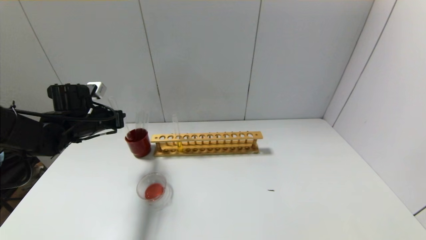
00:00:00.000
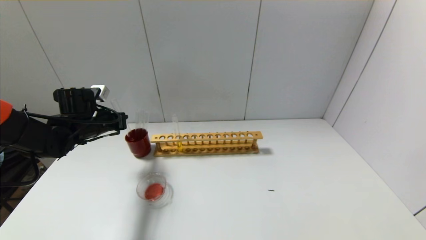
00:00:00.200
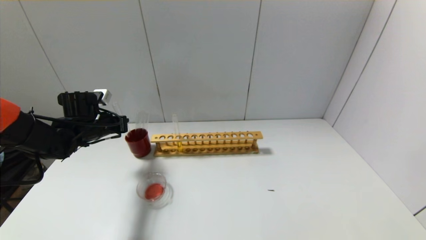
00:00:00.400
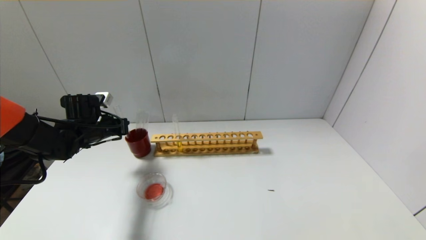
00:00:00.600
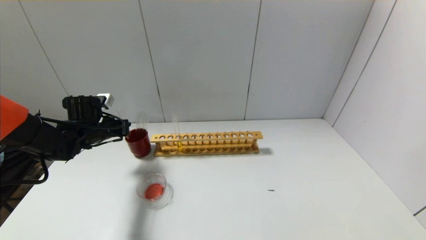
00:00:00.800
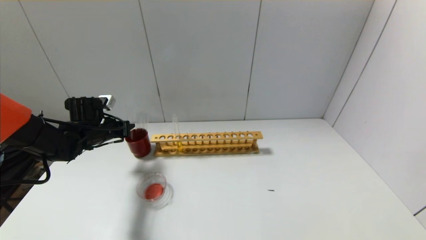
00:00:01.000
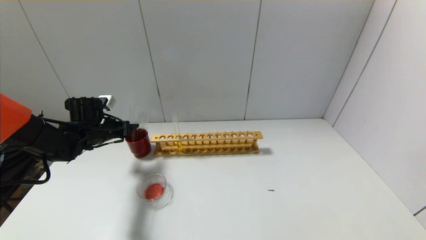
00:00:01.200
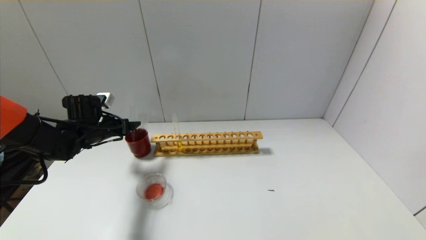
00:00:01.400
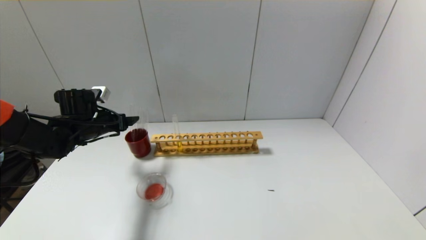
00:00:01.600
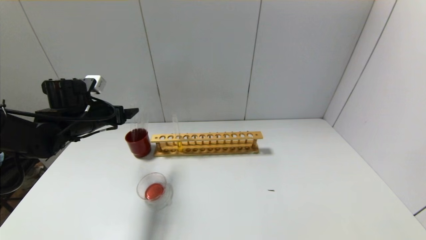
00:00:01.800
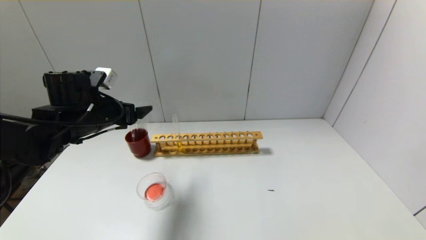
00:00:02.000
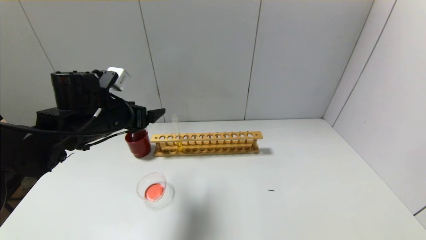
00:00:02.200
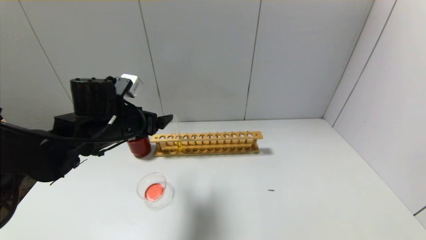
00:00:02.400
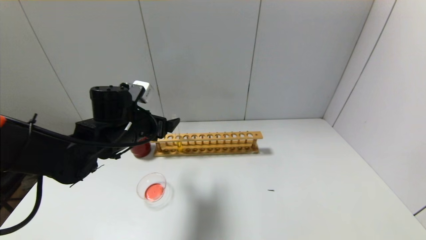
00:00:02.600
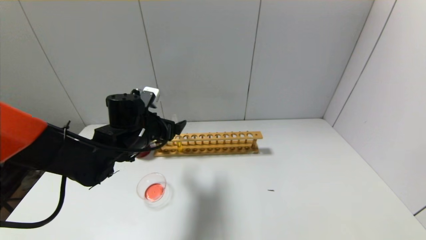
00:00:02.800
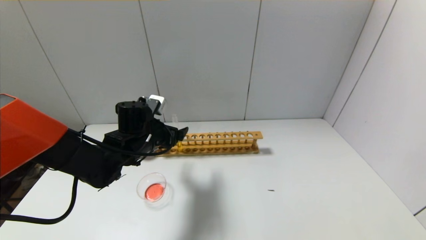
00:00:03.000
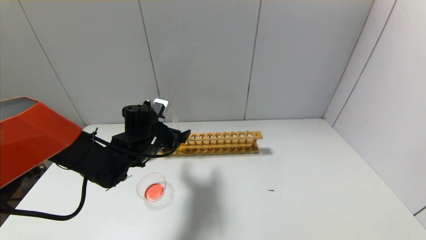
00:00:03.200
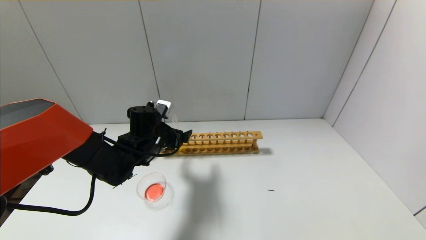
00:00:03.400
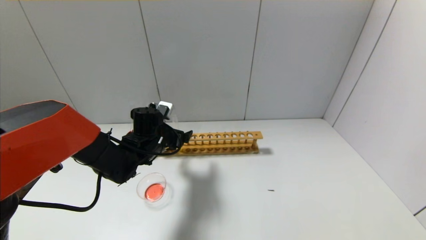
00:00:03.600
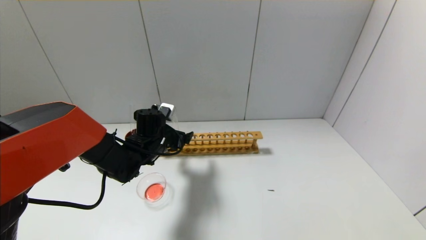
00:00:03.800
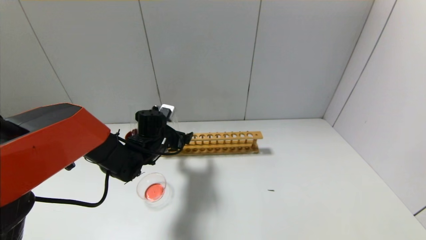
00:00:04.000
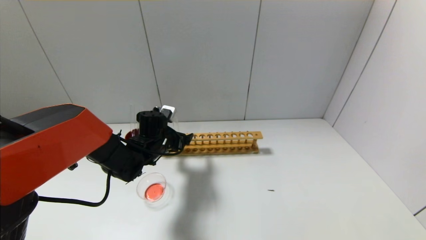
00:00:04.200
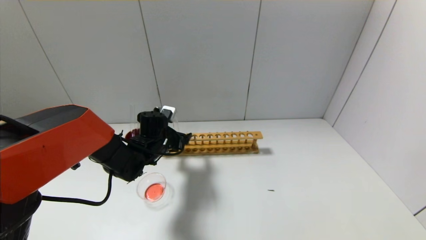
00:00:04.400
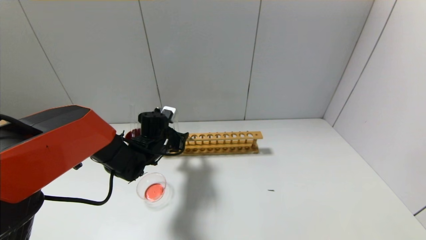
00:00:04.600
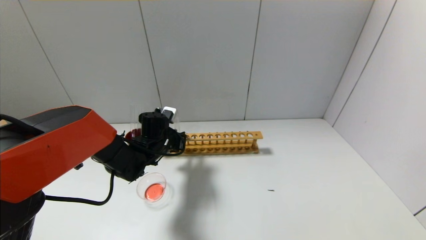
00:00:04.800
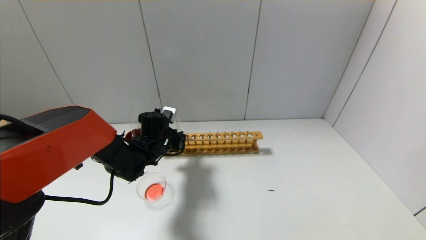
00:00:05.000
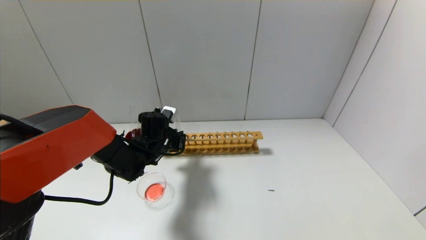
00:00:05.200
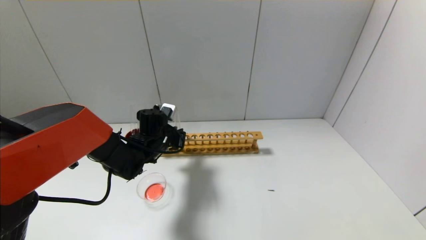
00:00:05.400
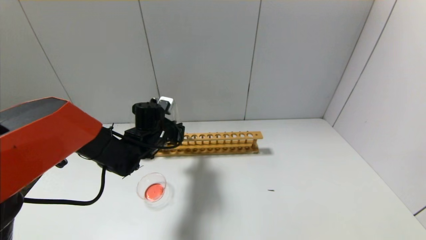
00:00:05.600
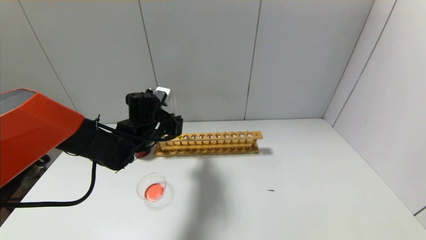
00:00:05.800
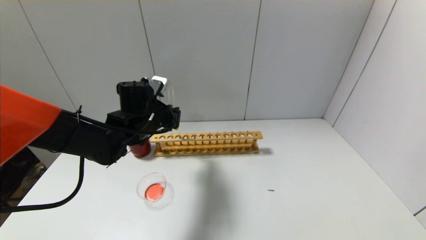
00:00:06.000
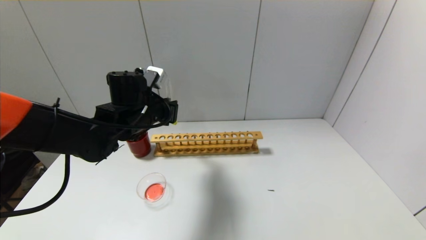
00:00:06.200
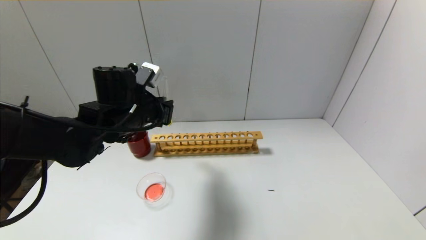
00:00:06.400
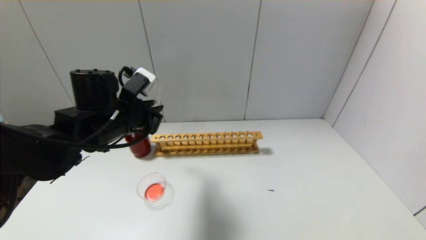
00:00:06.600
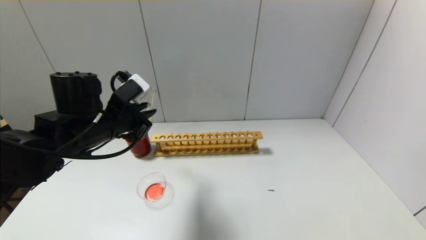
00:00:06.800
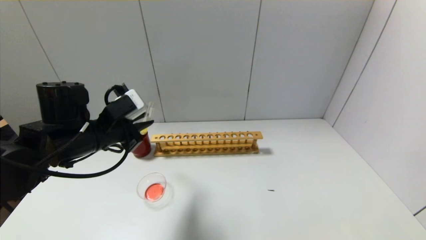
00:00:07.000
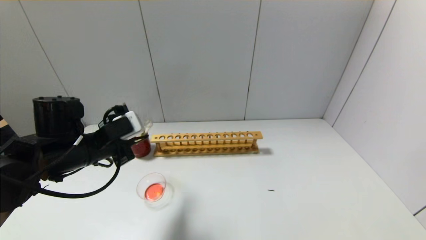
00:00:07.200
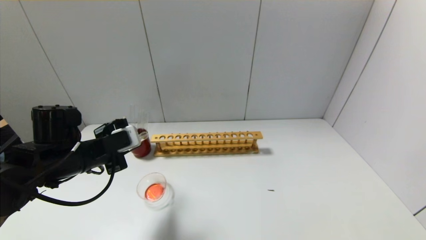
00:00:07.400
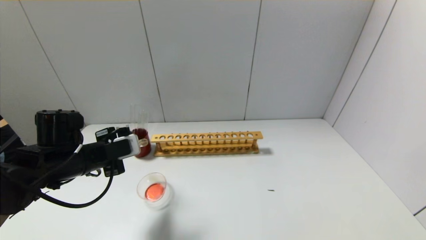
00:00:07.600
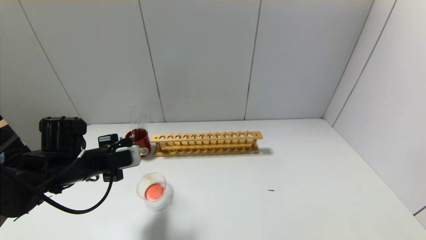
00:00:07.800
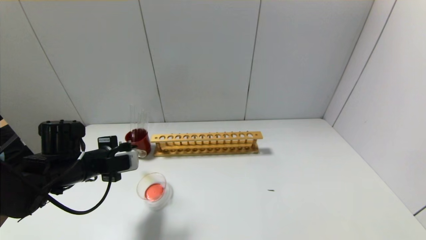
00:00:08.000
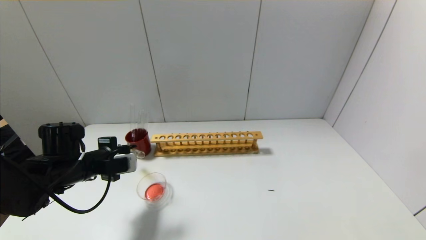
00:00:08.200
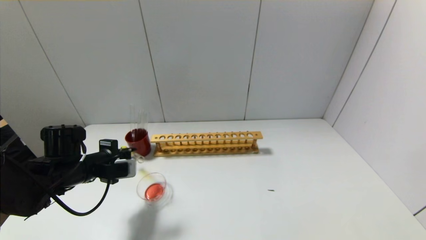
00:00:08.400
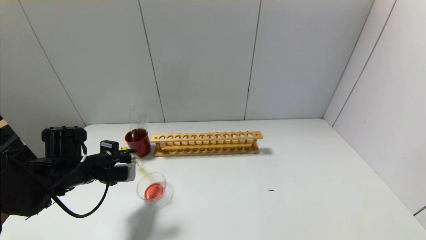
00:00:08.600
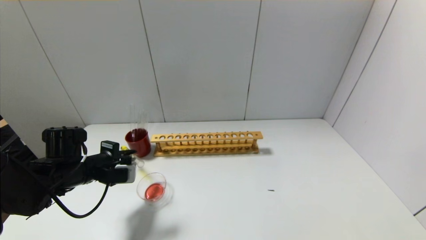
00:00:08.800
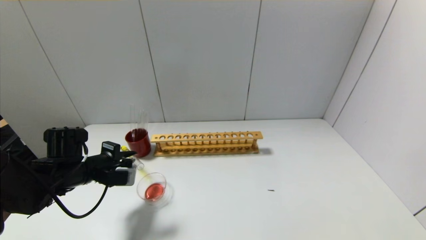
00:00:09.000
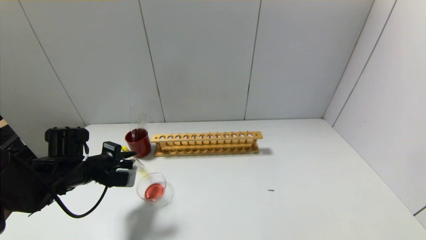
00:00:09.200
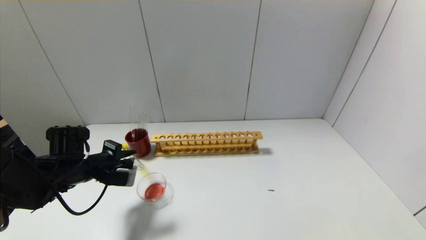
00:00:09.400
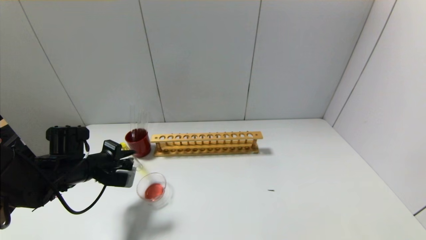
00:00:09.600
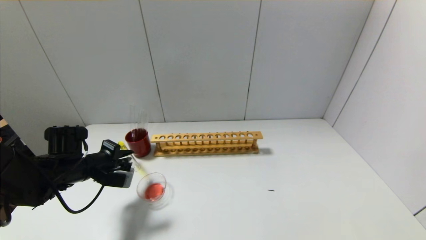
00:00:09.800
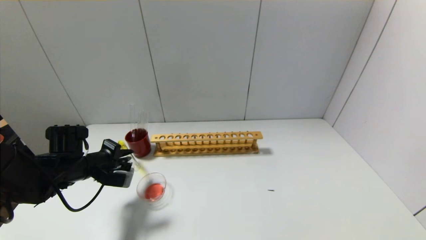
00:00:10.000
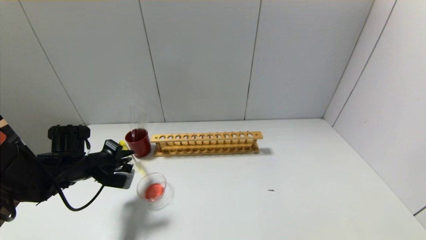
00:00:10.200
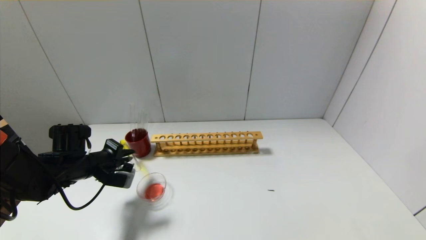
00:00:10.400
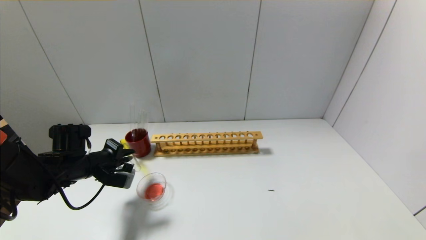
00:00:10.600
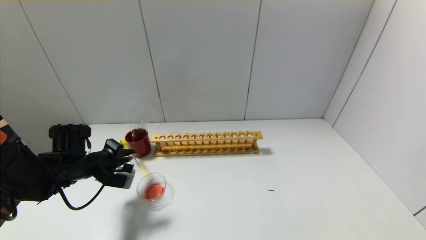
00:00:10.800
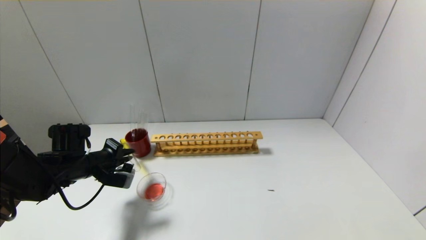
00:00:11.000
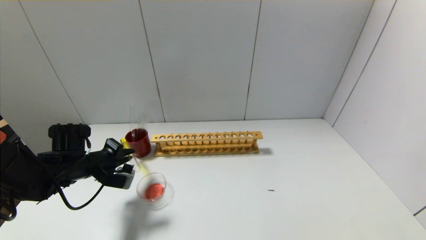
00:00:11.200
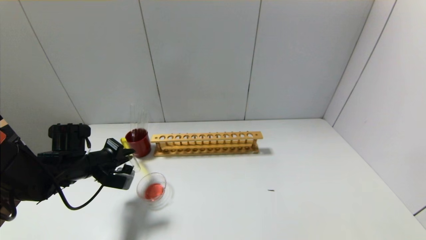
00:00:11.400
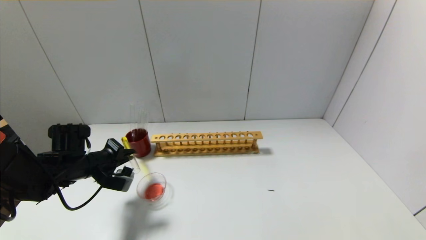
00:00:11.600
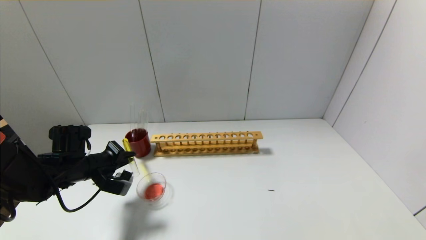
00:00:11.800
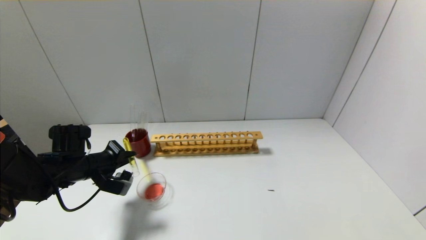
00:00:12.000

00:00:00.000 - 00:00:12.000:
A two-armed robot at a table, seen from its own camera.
Step, 00:00:01.200 - 00:00:04.800: Grasp the yellow reagent with the left gripper.
00:00:00.000 - 00:00:01.600: The left gripper opens up.
00:00:01.600 - 00:00:03.000: The left gripper is displaced to the right by about 15 cm.
00:00:03.000 - 00:00:04.400: The left gripper moves downward, some 5 cm.
00:00:04.400 - 00:00:06.000: The left gripper is displaced upward by about 10 cm, and closes up.
00:00:06.000 - 00:00:07.600: The left gripper travels to the left and backward by approximately 15 cm.
00:00:07.600 - 00:00:09.000: The left gripper travels downward by approximately 5 cm.
00:00:09.000 - 00:00:10.400: The grippers move only a little.
00:00:10.400 - 00:00:12.000: The grippers move only a little.

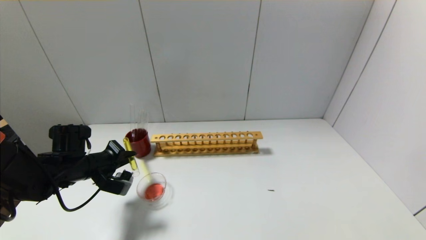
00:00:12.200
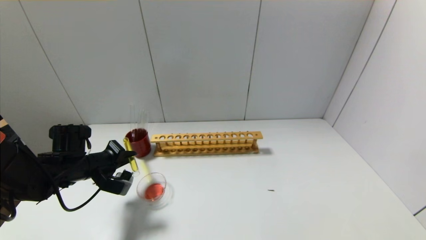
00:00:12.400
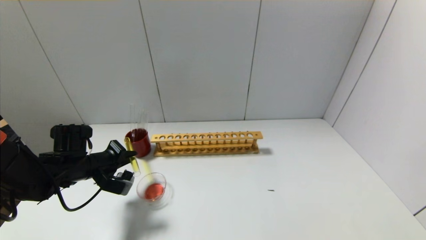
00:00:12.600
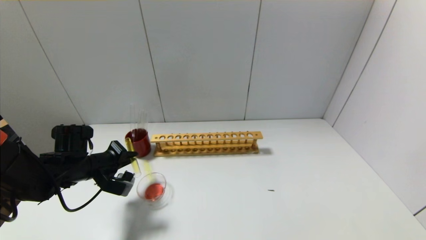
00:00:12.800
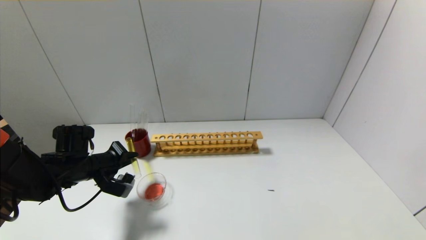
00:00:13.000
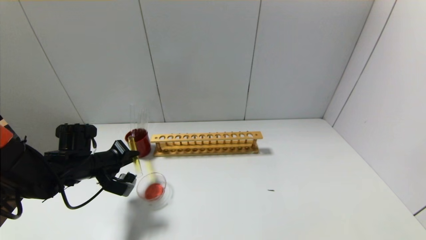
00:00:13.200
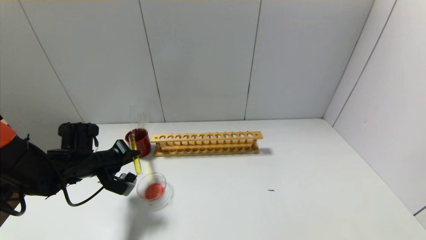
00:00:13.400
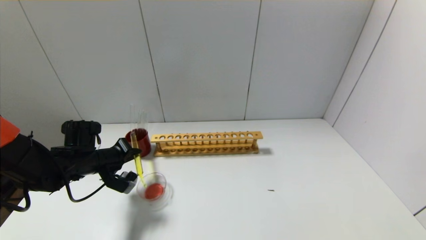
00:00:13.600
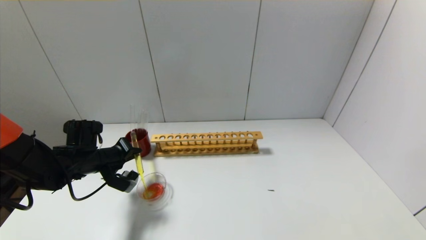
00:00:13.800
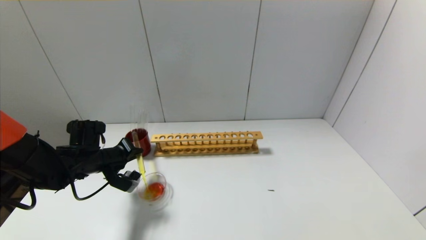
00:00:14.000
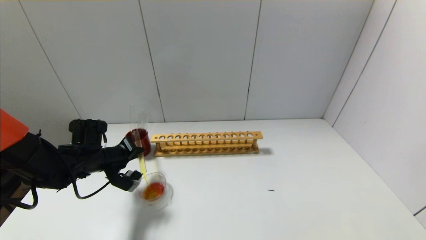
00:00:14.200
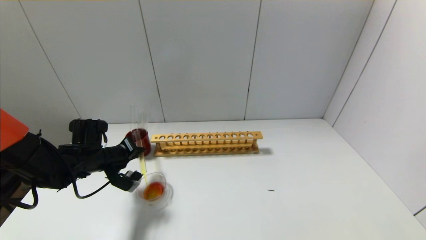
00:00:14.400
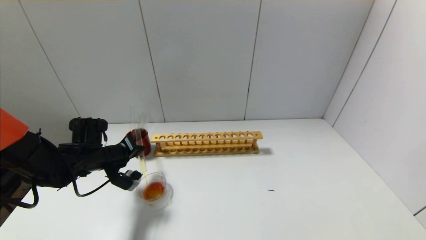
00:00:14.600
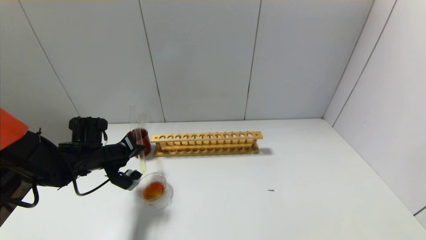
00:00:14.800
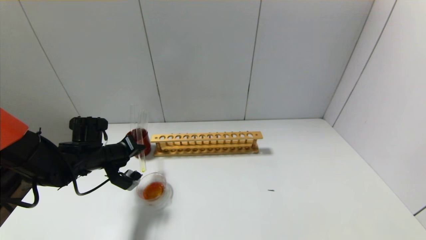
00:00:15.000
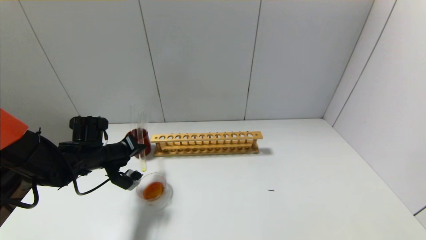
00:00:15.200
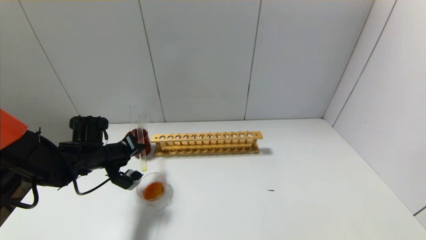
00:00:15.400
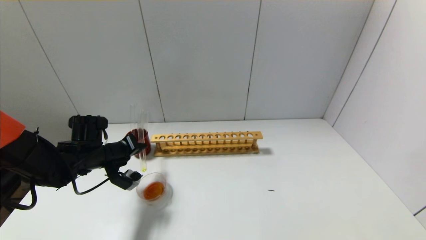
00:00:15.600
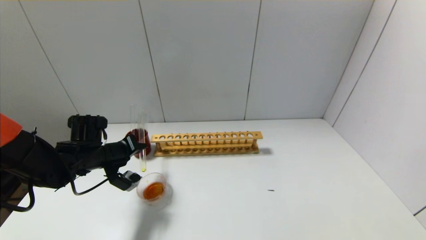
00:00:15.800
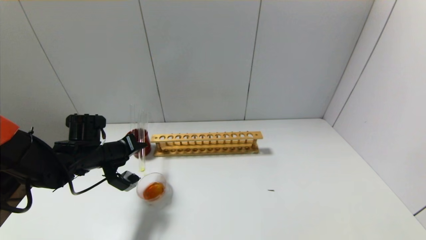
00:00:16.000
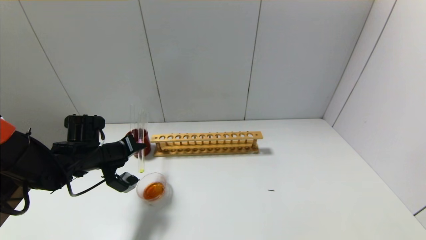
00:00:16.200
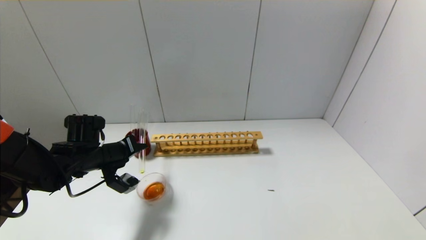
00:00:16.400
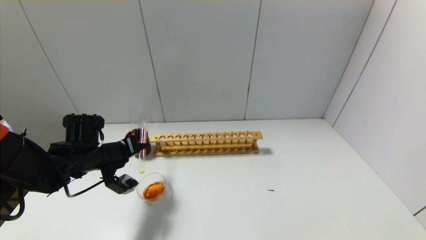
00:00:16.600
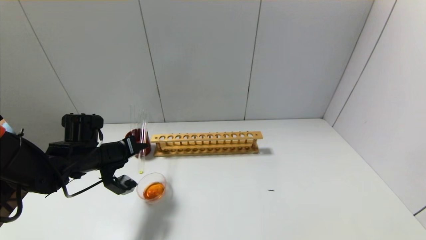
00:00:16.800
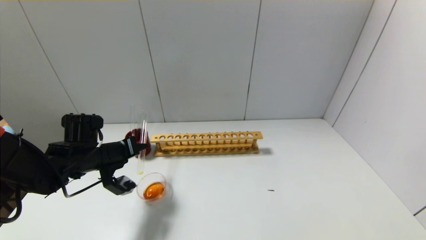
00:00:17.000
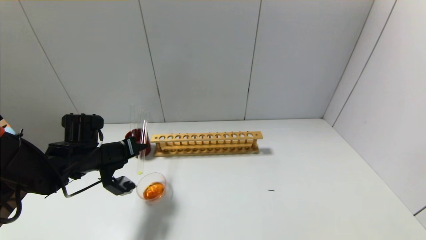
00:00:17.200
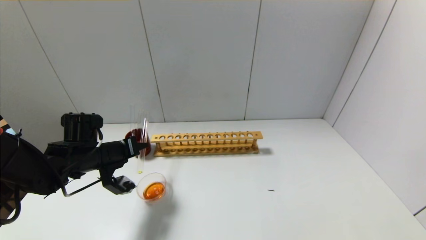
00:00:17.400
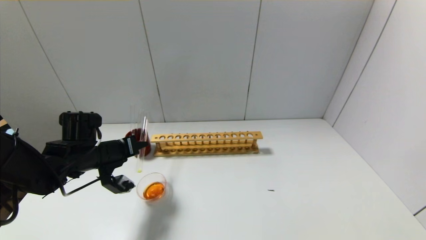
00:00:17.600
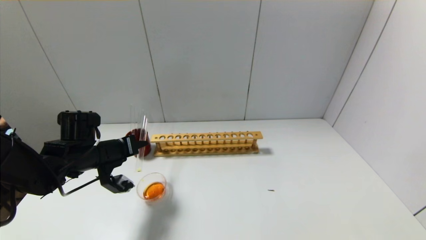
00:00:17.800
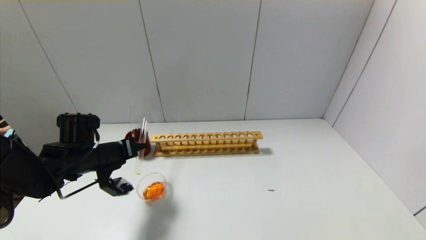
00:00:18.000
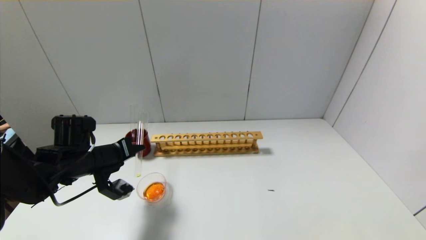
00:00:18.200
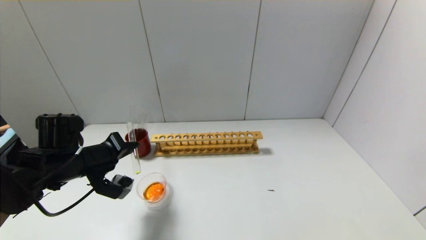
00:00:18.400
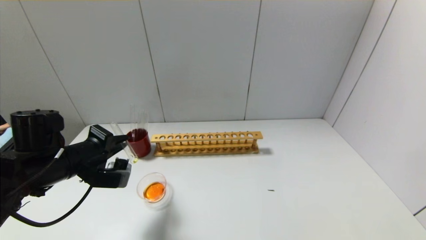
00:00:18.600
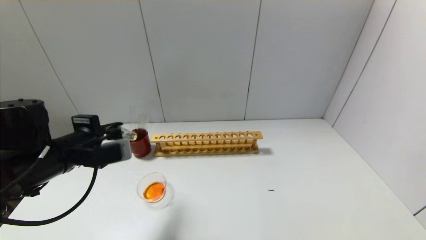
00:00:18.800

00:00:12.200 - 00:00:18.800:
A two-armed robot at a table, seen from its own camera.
Step, 00:00:12.200 - 00:00:18.400: Pour the yellow reagent into the graduated cylinder with the left gripper.
00:00:12.200 - 00:00:15.400: There are only small adjustments of the grippers.
00:00:15.400 - 00:00:17.200: There are only small adjustments of the grippers.
00:00:17.200 - 00:00:18.800: The left gripper heads backward and upward, covering approximately 10 cm.
